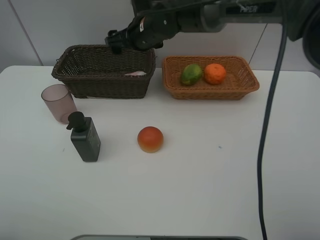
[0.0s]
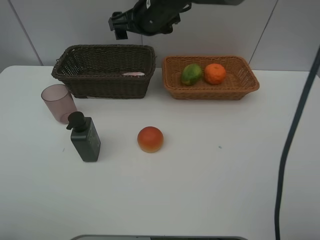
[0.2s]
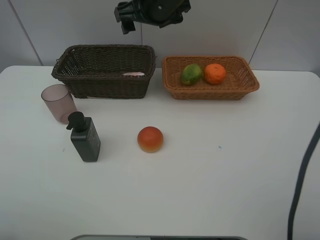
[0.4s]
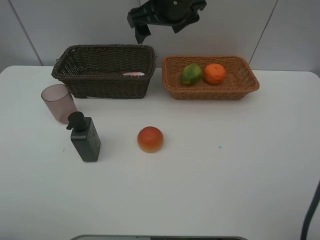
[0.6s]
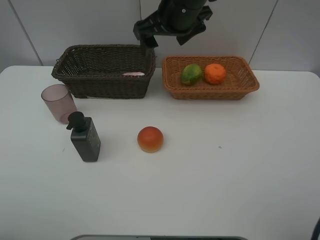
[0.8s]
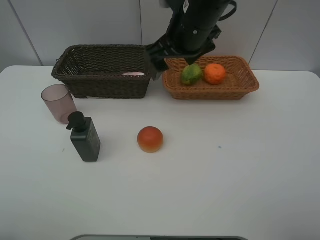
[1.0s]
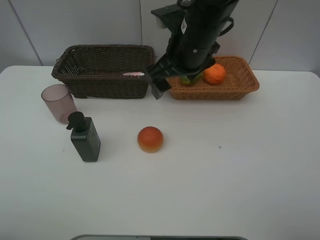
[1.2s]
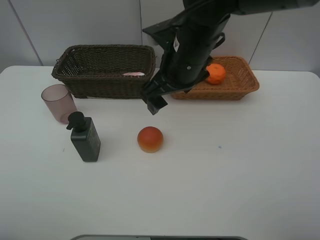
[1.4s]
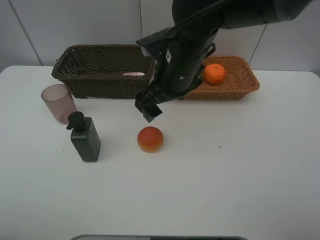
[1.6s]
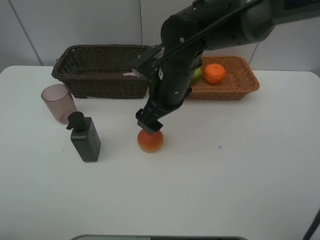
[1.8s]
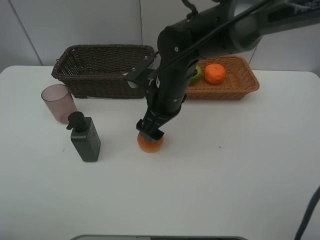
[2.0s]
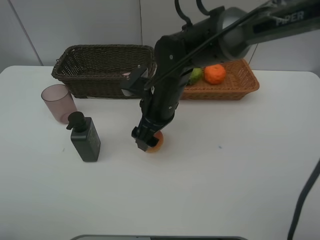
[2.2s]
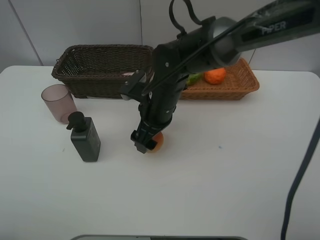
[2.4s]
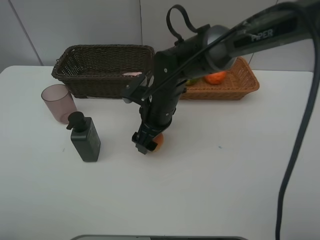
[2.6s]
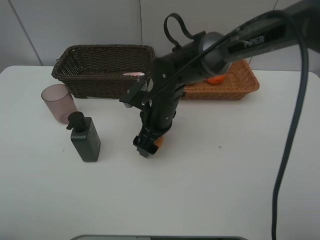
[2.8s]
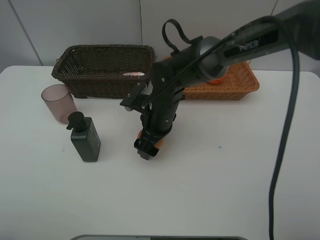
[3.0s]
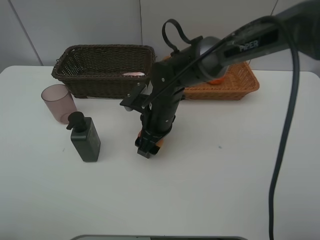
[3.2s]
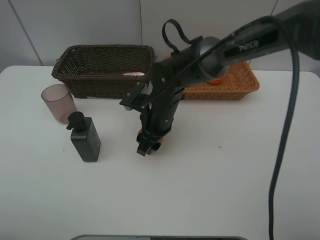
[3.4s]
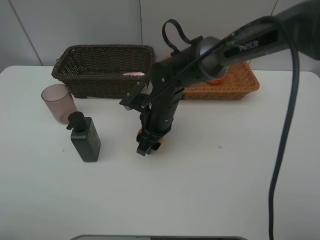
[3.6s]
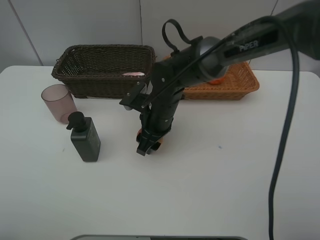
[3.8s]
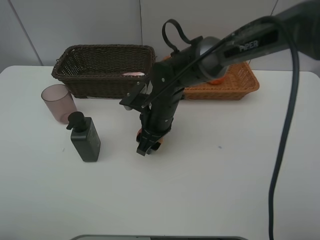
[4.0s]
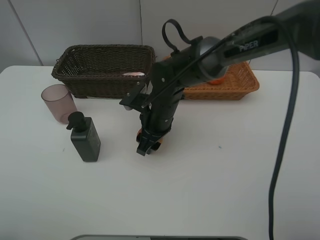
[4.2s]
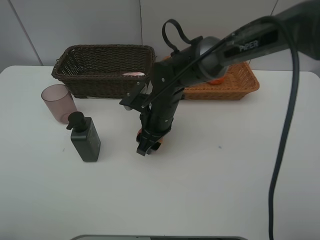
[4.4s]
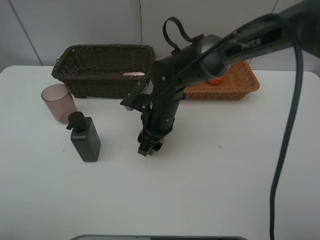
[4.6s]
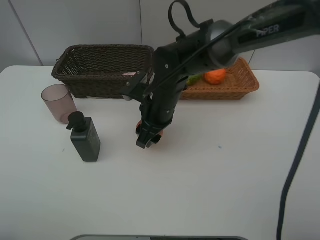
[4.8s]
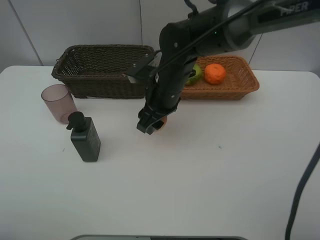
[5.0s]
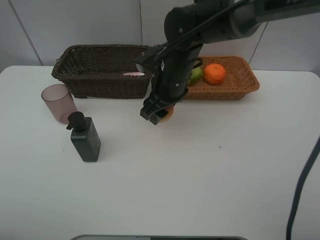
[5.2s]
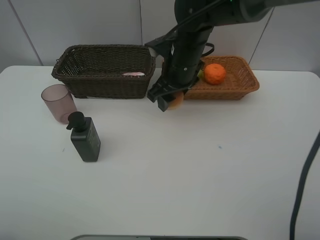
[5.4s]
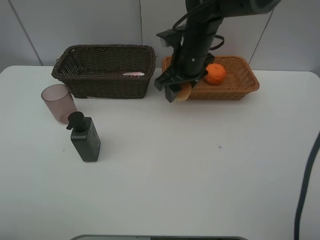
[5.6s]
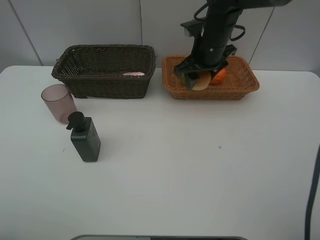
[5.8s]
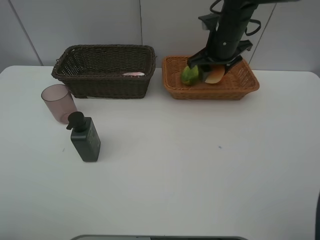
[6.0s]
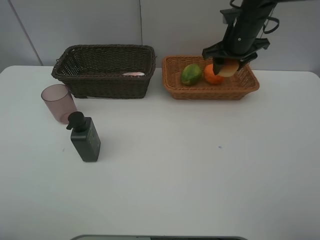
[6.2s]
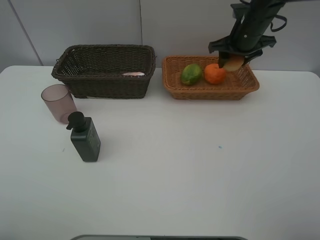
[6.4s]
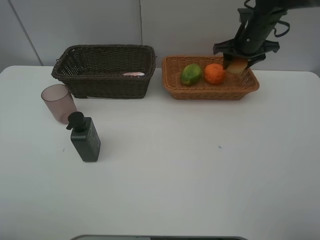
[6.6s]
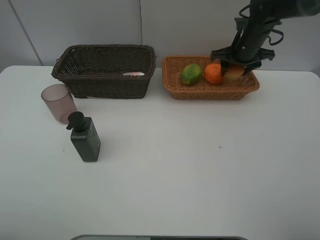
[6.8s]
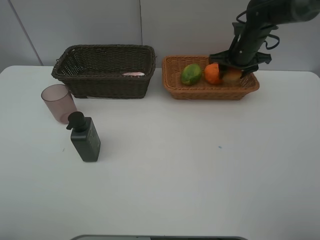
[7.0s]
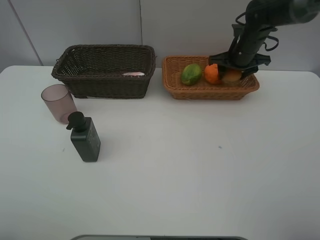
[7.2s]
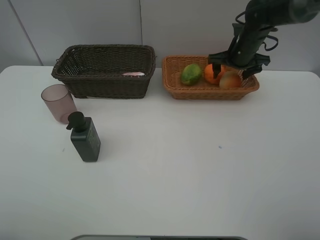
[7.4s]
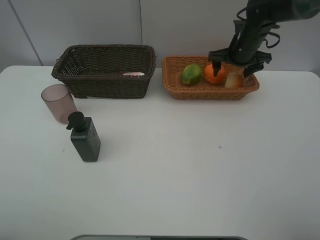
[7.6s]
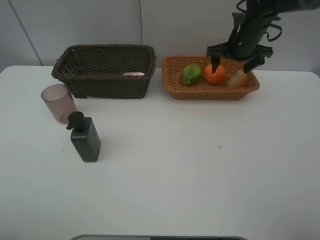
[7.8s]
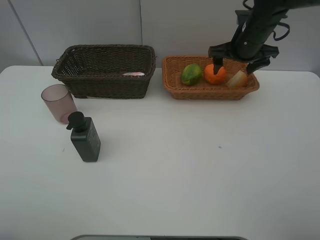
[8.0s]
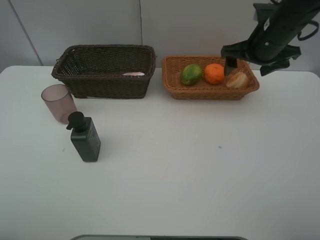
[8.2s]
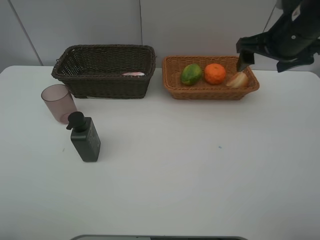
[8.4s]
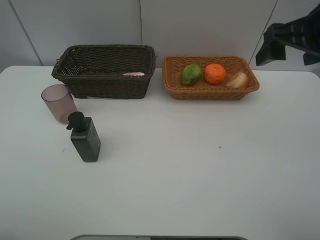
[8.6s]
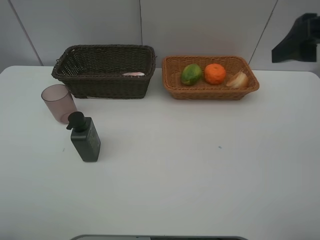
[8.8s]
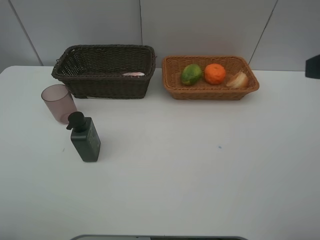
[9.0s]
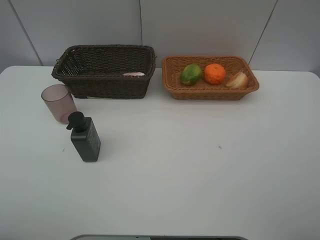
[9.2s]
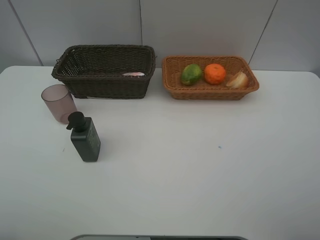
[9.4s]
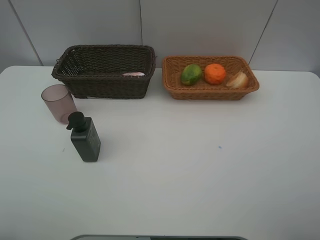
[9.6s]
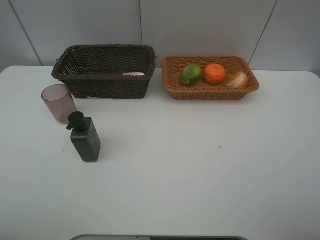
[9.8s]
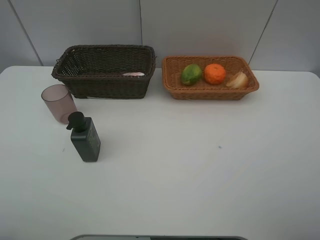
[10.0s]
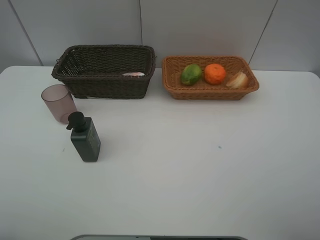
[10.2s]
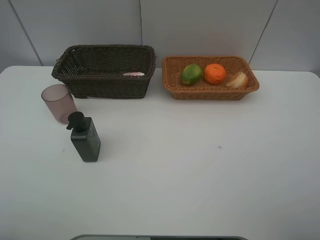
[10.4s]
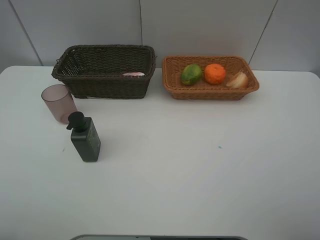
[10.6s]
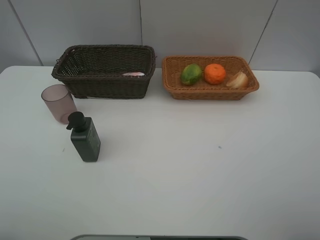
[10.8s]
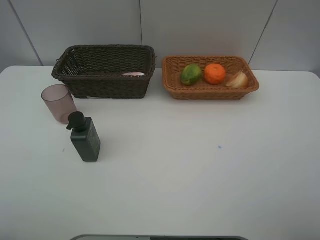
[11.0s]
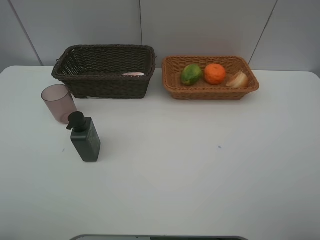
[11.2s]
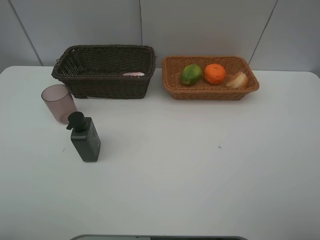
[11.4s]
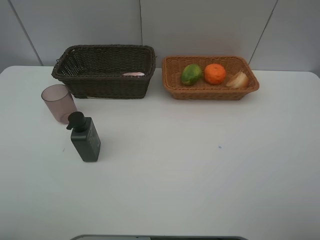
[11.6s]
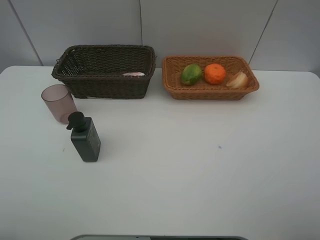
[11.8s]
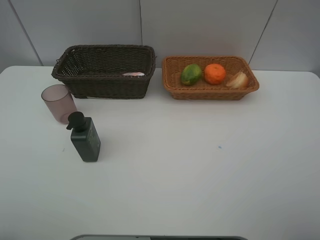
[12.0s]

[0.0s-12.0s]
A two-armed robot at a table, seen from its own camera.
Task of the whole recording: place multiple objects separately in different baskets.
0.0s to 1.6s: The right gripper heads backward, covering about 15 cm.
1.6s to 3.0s: The right gripper heads downward, covering some 10 cm.
4.4s to 6.0s: The right gripper travels to the right, upward and forward by some 20 cm.
6.0s to 7.6s: The right gripper moves to the right, approximately 5 cm, and opens up.
7.6s to 9.0s: The right gripper goes roughly 40 cm backward and upward.

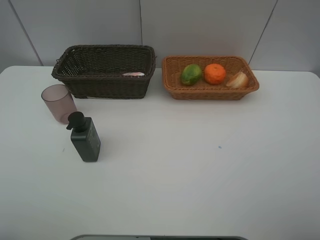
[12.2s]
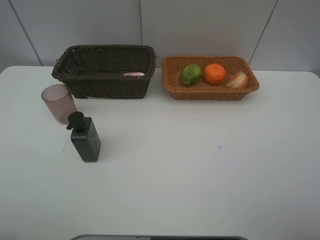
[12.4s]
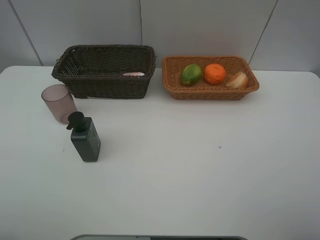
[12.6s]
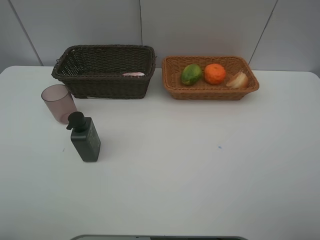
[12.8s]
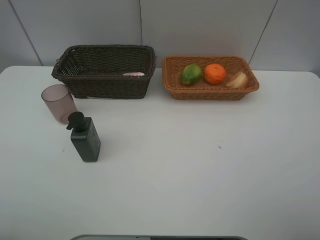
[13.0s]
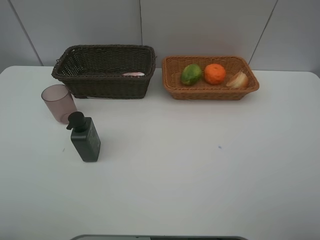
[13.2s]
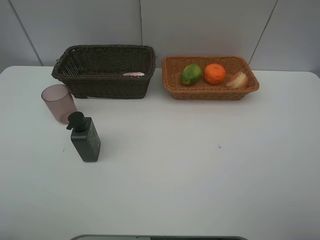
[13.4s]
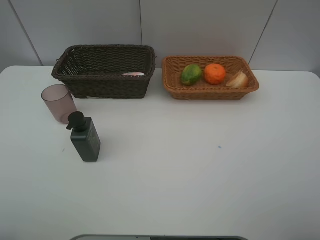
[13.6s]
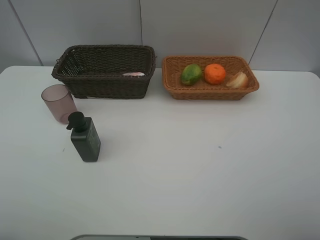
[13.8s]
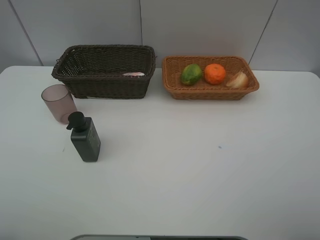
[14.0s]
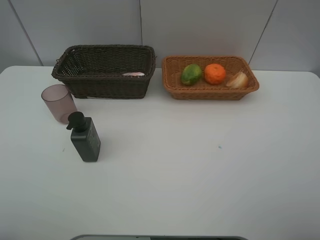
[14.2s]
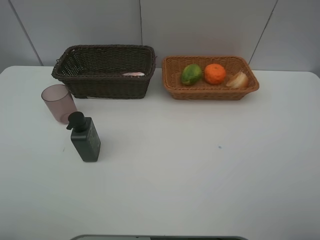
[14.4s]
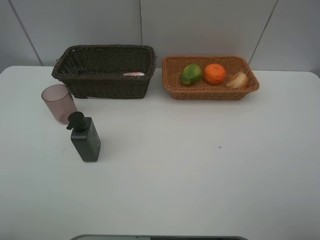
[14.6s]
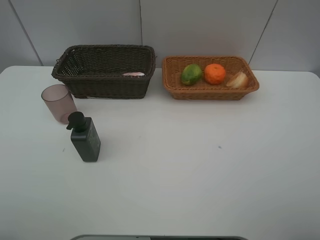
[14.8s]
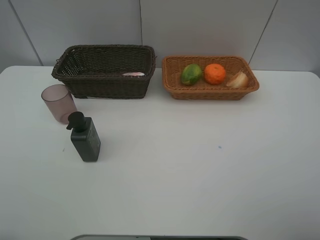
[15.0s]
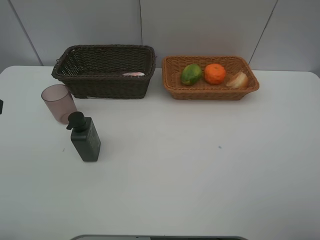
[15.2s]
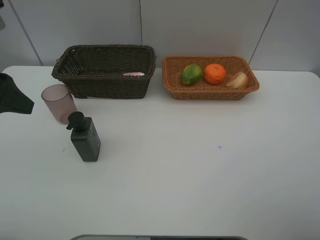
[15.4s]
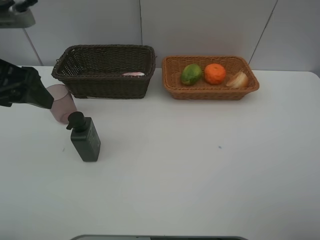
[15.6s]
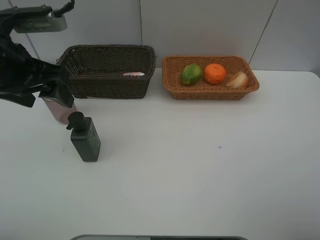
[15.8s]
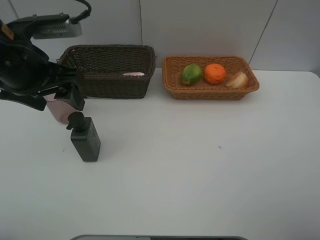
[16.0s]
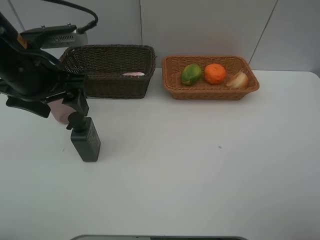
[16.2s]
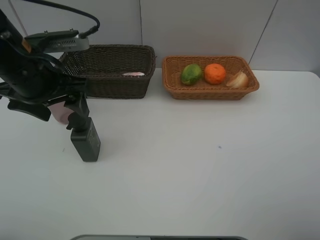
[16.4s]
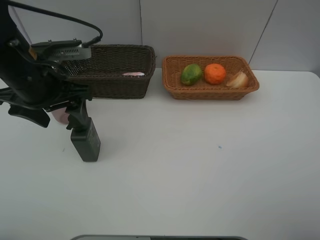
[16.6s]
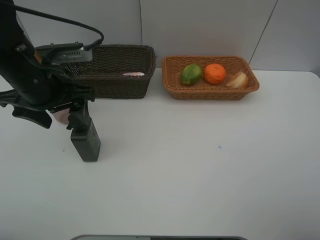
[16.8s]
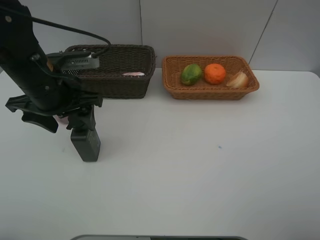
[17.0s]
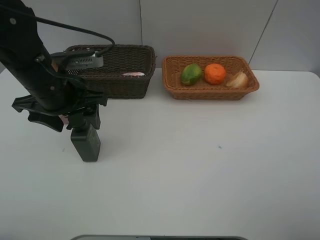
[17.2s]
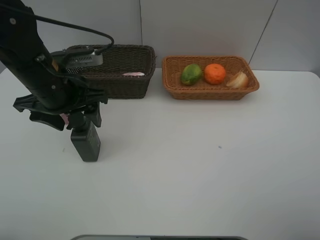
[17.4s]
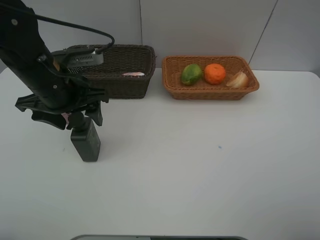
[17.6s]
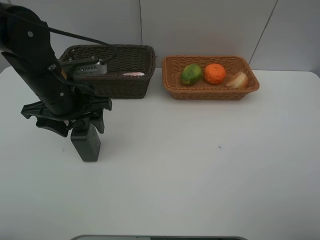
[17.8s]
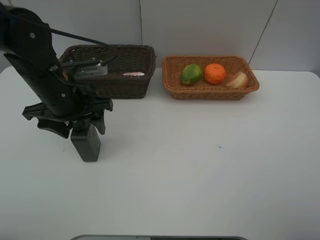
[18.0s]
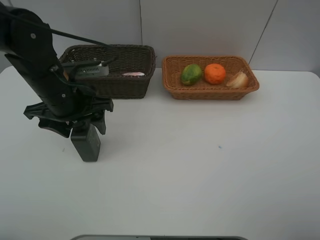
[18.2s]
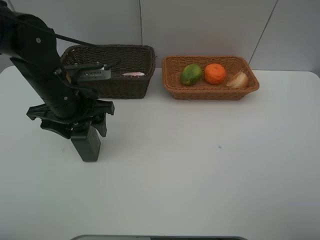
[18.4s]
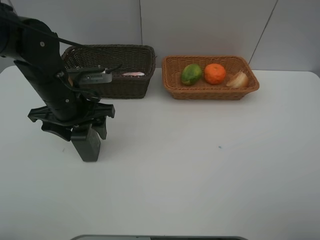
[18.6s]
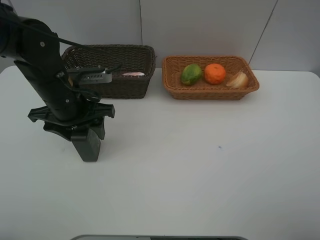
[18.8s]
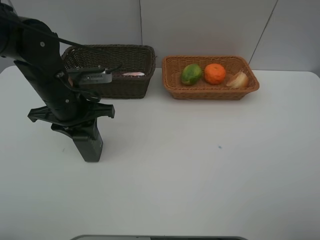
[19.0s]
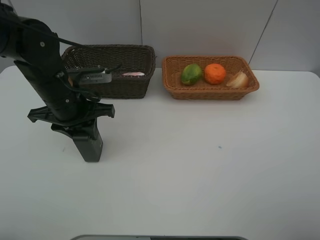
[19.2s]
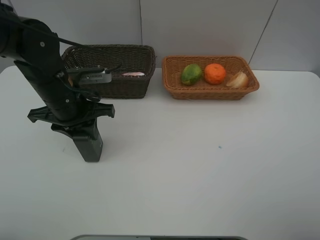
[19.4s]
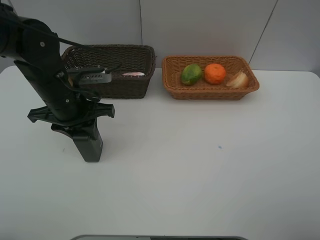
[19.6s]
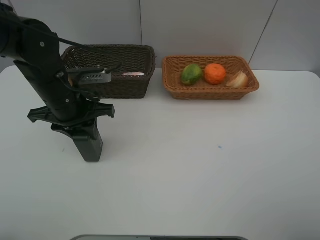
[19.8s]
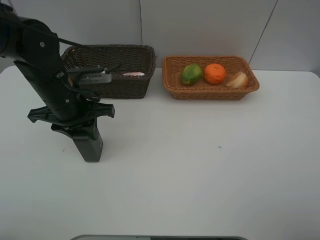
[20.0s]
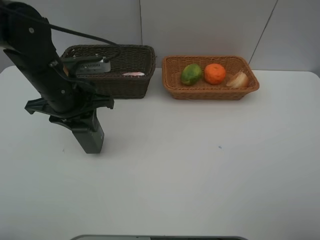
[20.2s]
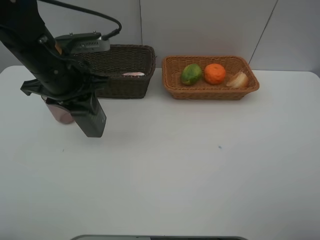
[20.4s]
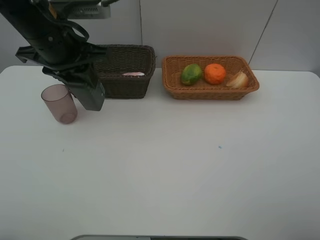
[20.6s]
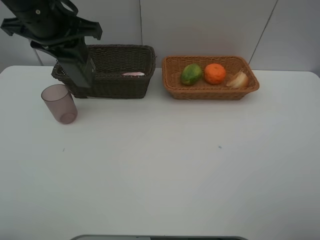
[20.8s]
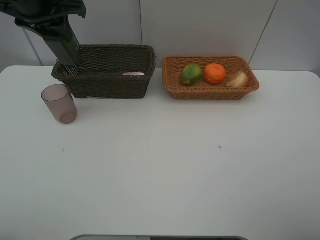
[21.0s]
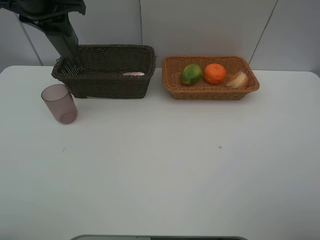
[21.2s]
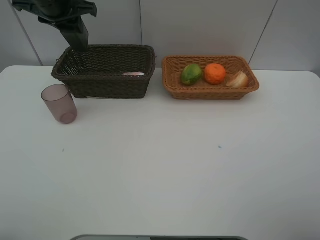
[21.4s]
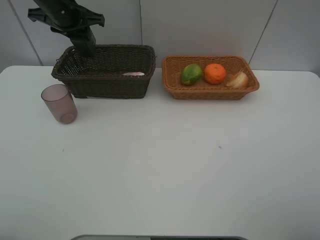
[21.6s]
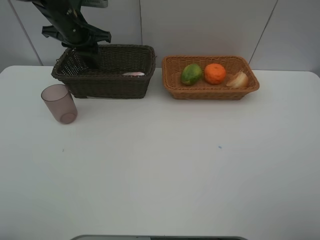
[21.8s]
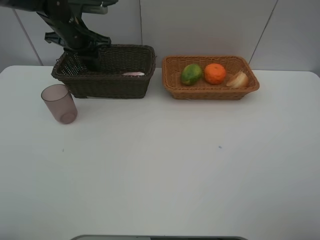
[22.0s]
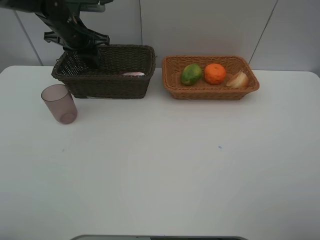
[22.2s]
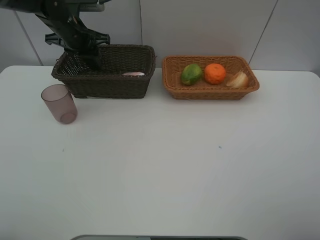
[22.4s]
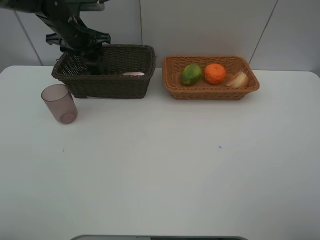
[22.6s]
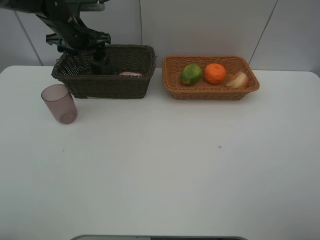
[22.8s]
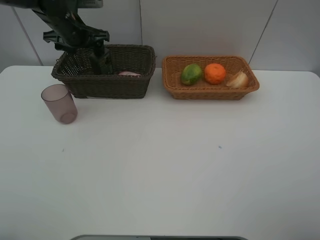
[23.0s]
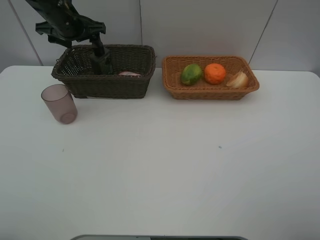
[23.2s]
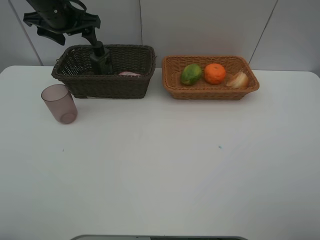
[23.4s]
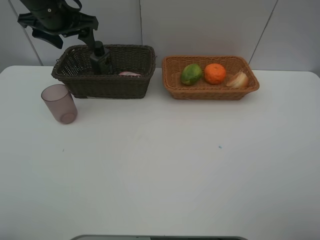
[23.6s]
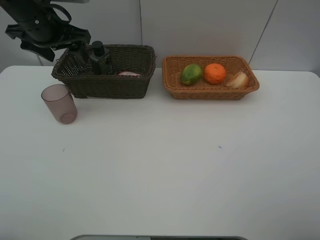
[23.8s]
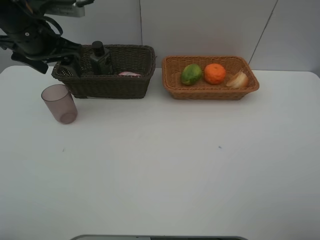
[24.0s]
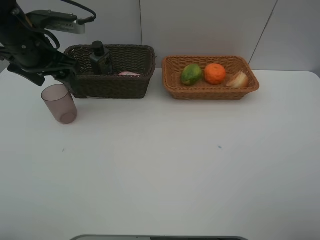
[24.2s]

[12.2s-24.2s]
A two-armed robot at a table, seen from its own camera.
Task of the whole recording: place multiple objects separately in different baskets.
12.2s to 13.8s: The two grippers keep their place.
15.2s to 16.6s: The left gripper shifts about 15 cm forward, to the right and downward.
16.6s to 18.2s: The left gripper moves about 5 cm.
18.2s to 19.8s: The left gripper closes up.
19.8s to 21.2s: The left gripper heads upward and forward, covering roughly 20 cm.
21.2s to 22.6s: The left gripper moves downward and forward, some 15 cm, and opens.
22.6s to 24.2s: The left gripper shifts some 15 cm backward.
